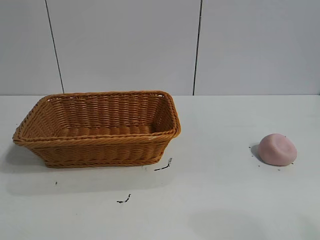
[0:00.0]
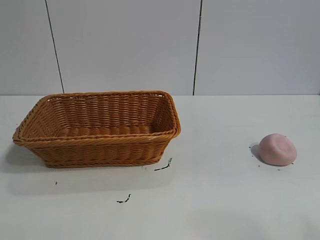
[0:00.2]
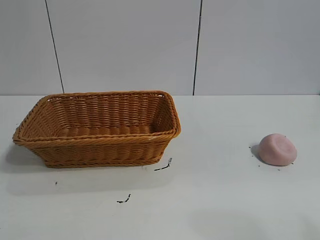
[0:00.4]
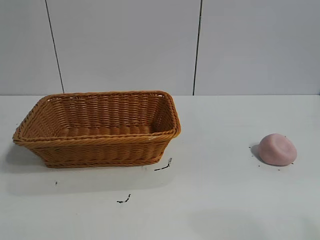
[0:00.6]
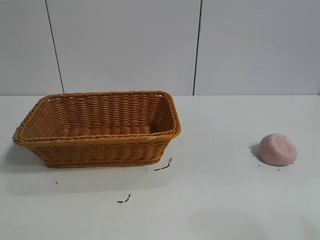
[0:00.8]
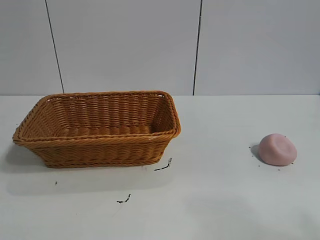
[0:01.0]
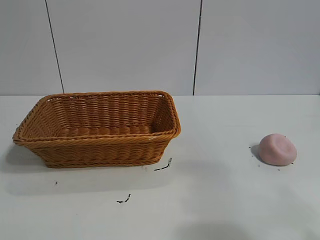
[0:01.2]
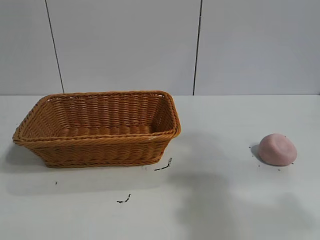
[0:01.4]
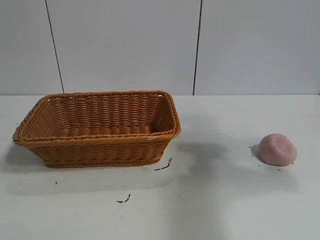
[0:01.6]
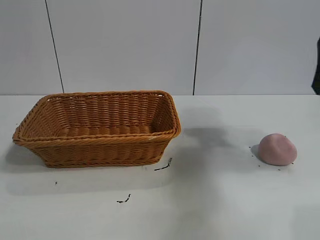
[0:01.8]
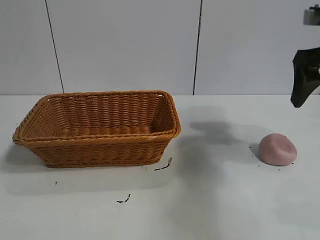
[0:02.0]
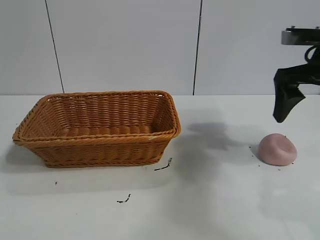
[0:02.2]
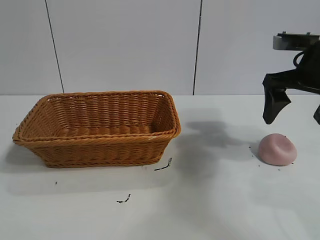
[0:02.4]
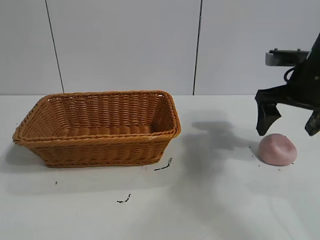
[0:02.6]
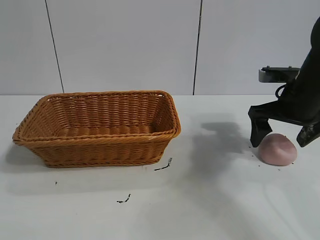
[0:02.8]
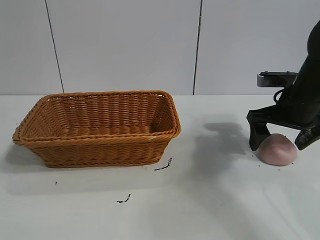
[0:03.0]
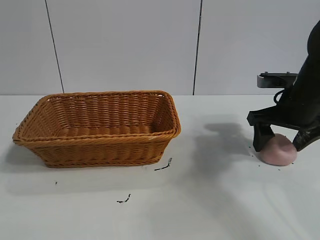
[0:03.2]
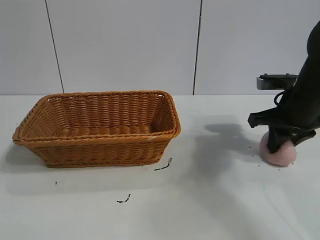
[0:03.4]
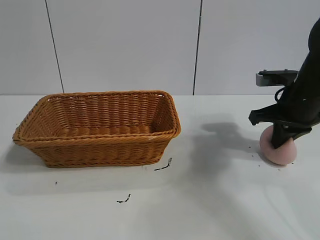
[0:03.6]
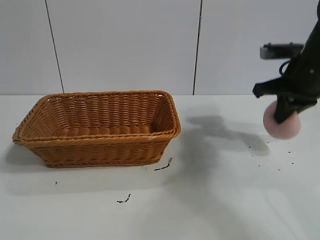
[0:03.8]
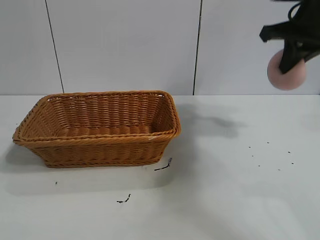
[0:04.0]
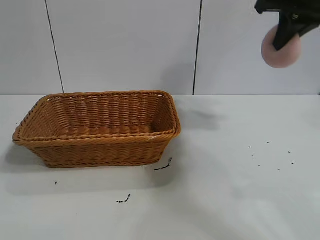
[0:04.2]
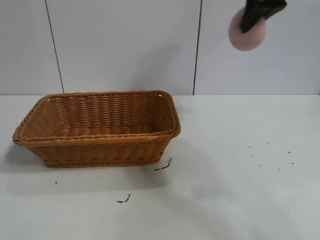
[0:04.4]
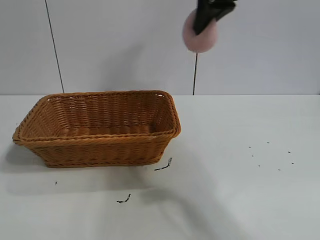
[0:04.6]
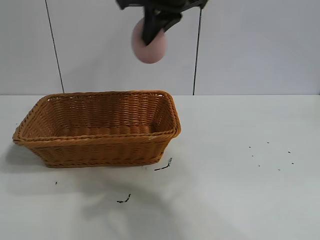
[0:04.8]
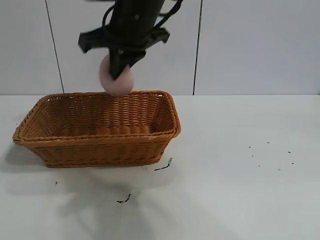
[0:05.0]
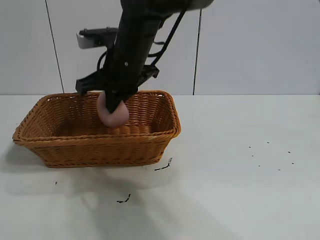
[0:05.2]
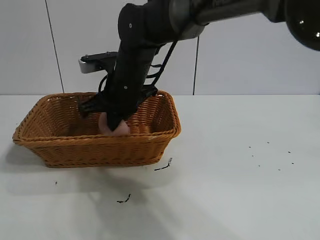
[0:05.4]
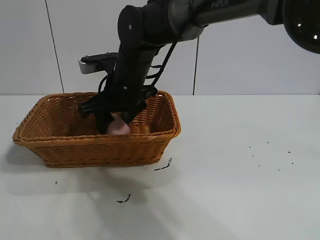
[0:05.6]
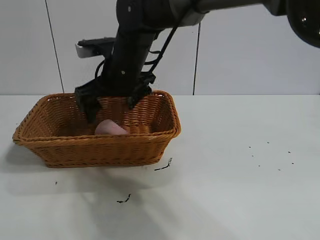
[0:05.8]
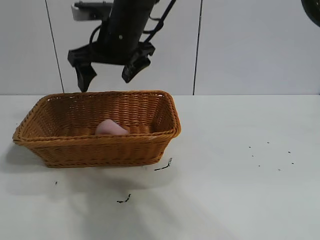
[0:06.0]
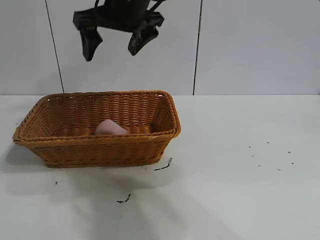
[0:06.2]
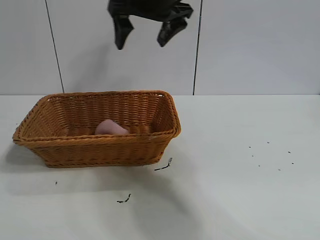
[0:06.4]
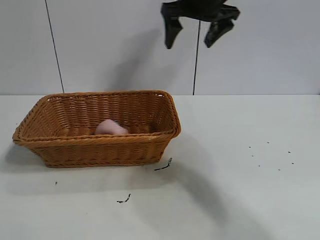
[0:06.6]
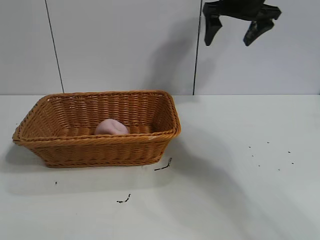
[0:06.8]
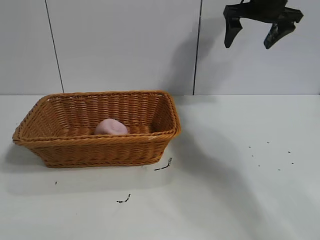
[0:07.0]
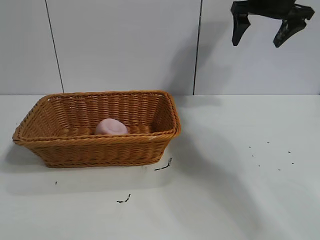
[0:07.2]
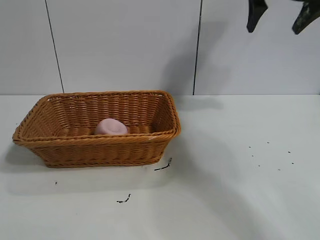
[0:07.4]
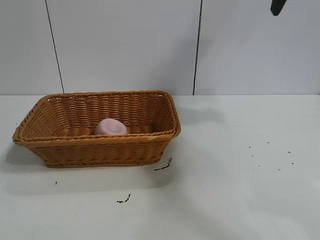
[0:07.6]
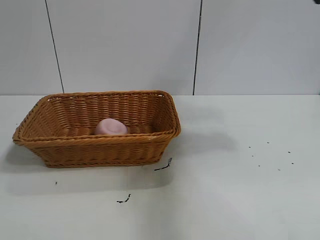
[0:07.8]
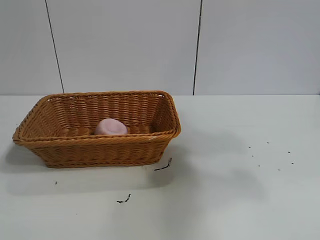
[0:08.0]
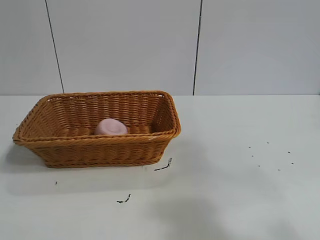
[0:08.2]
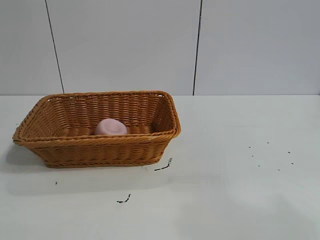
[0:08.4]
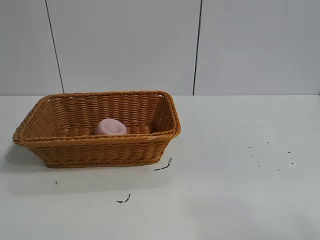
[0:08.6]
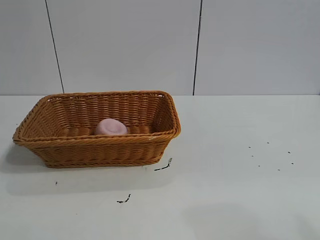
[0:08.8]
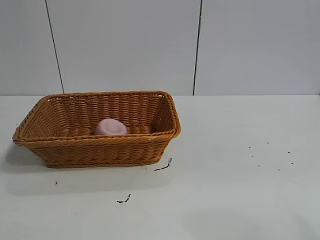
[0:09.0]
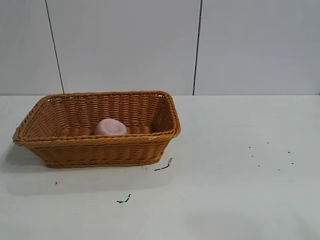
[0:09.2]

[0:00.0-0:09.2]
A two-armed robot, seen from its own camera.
Task of the whole recording: pick up the peach and put it into the basket.
Step, 0:01.0 to 0:03.4: Grasp the peach with right gripper.
Step, 0:03.6 to 0:05.6: Place the peach in the basket with right gripper.

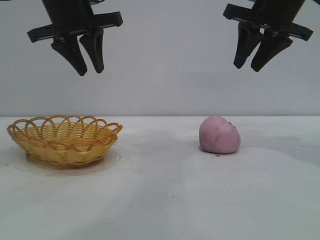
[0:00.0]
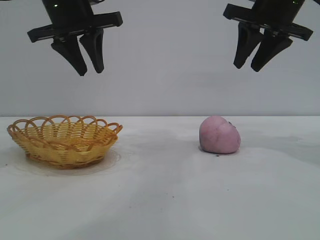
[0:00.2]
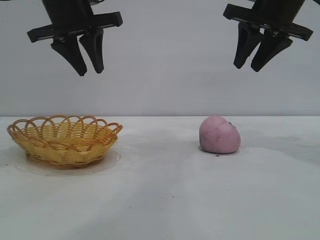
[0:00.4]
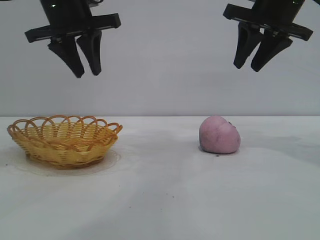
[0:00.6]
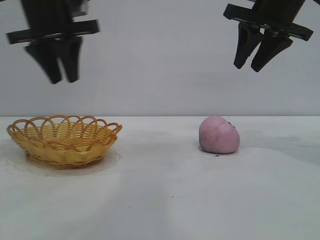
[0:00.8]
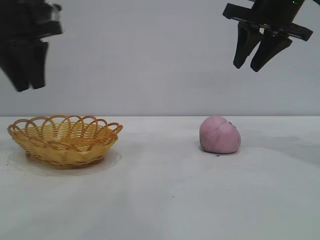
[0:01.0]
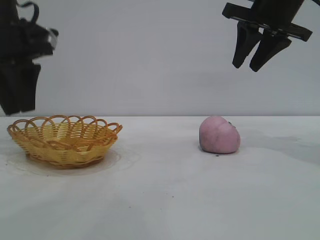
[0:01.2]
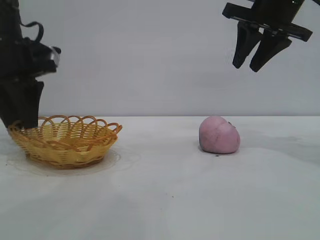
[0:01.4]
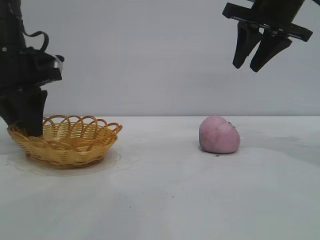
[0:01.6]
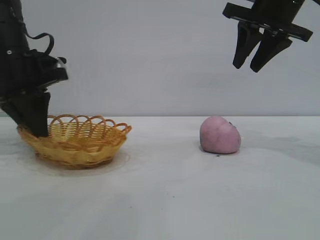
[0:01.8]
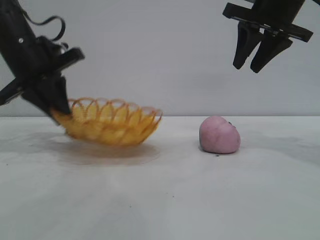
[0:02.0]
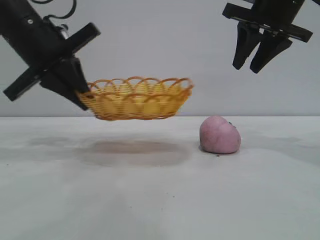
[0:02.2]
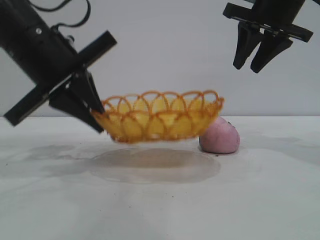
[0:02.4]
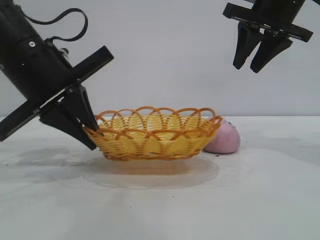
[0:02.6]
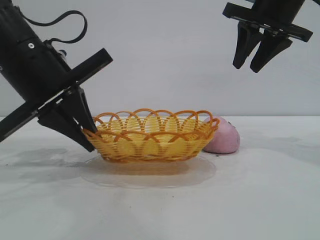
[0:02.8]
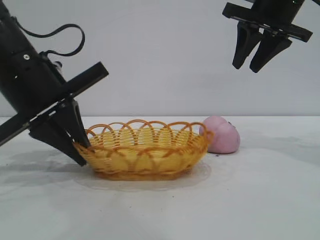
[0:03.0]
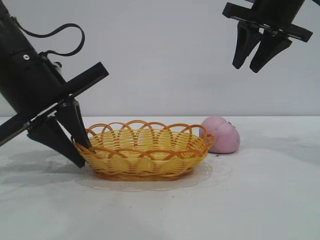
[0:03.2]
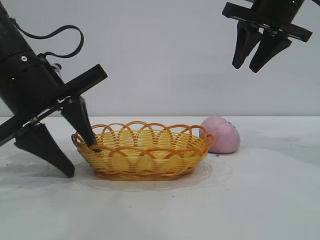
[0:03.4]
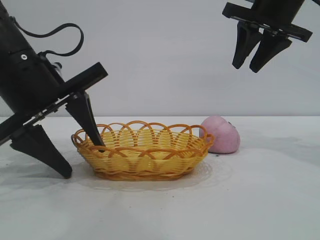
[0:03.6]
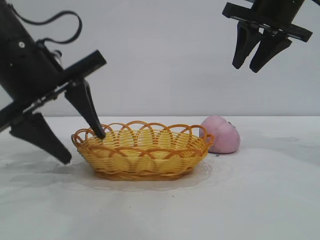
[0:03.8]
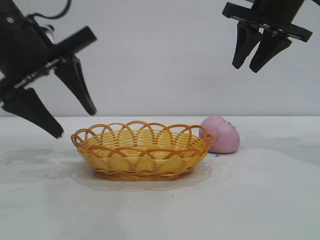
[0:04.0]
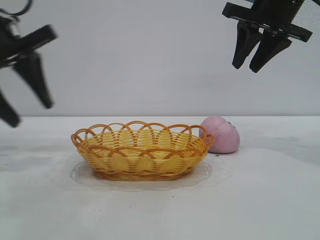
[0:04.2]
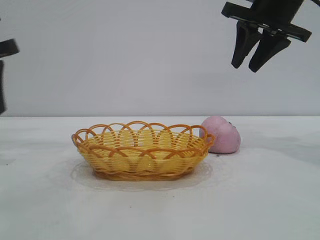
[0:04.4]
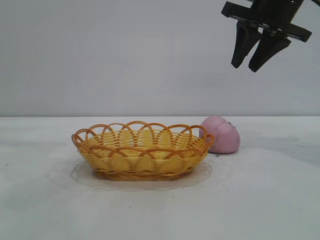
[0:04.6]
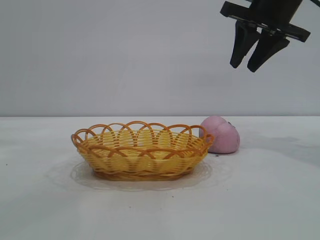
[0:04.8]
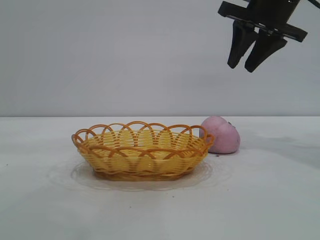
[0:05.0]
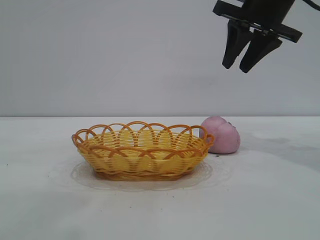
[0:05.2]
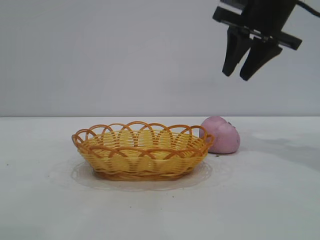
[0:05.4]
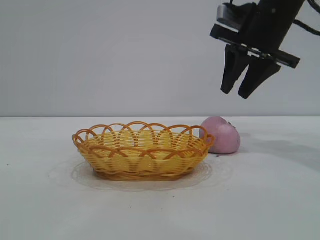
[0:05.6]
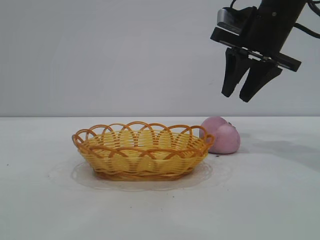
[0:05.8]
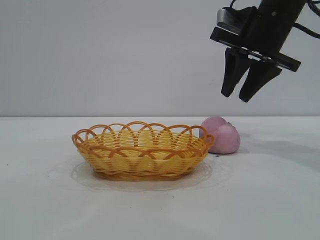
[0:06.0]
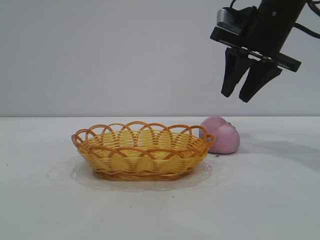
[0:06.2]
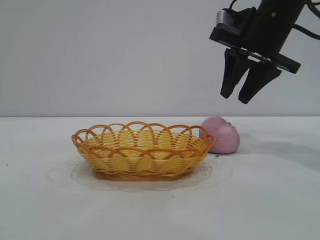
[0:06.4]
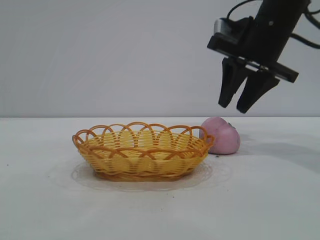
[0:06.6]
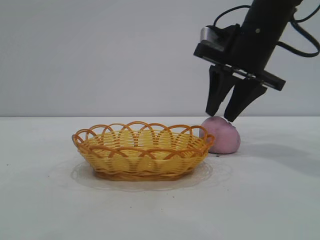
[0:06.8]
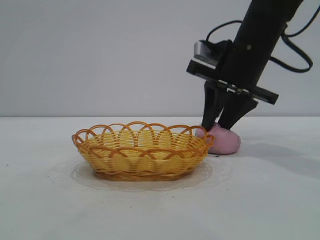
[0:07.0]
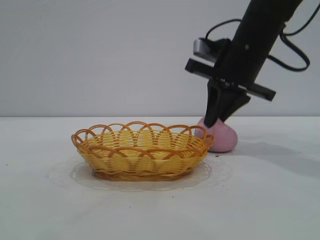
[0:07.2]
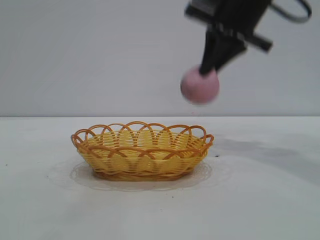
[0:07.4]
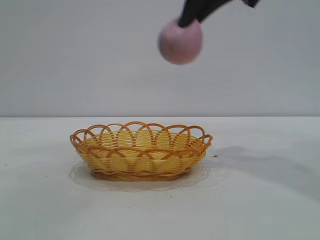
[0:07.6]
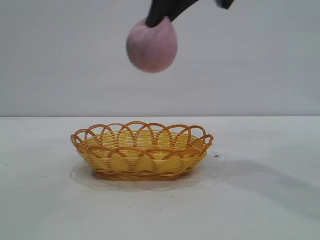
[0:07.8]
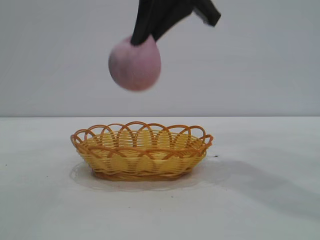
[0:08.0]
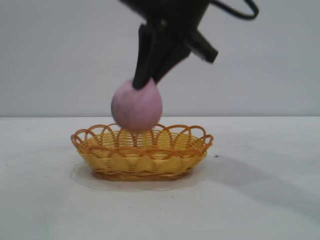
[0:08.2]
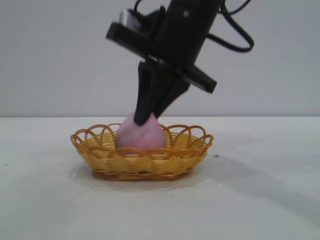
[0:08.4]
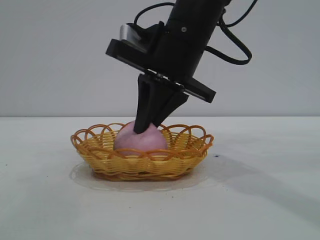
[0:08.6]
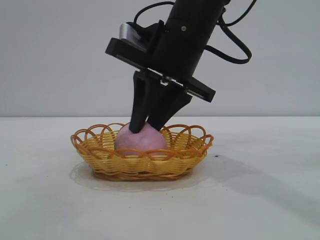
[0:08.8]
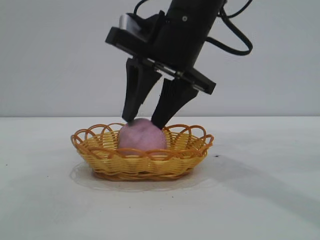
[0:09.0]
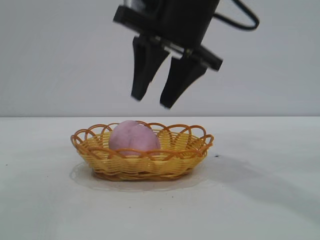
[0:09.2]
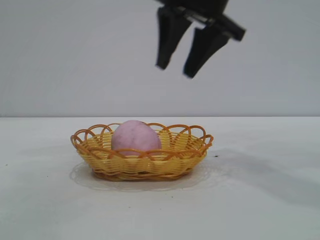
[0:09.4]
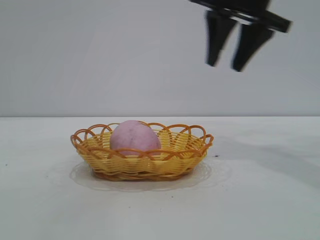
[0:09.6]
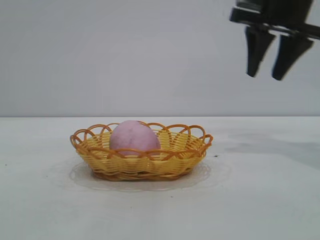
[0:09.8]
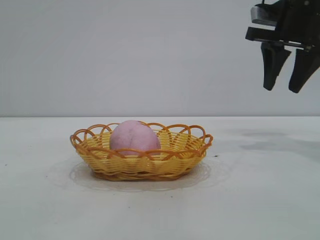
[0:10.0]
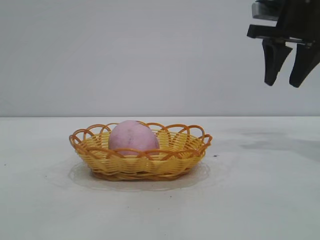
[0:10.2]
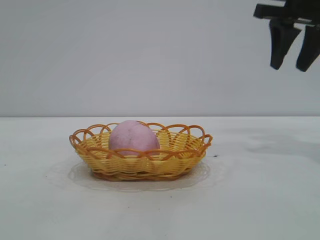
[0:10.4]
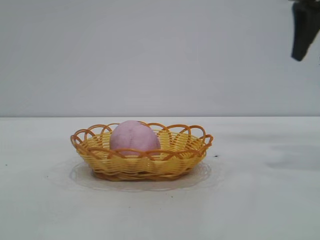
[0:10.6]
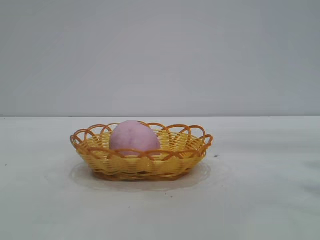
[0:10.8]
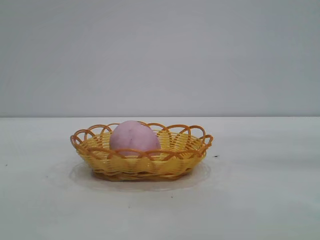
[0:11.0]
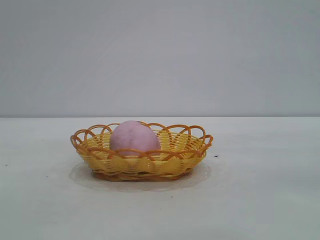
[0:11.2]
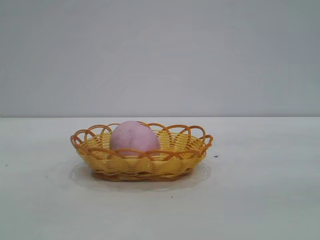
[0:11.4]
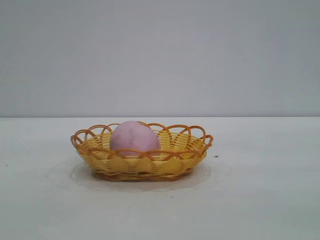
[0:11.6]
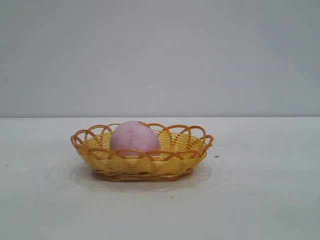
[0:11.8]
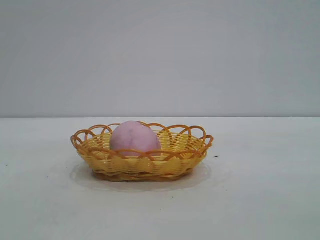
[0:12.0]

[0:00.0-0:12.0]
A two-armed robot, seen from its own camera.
Task of the whole recording: pick up the peach and put it into the basket.
Step, 0:00.0 to 0:04.0: Move the basket to the center of view.
Step, 0:04.2 to 0:07.4: Pick up the peach.
Step, 0:07.6 to 0:09.2: place the peach into the basket.
